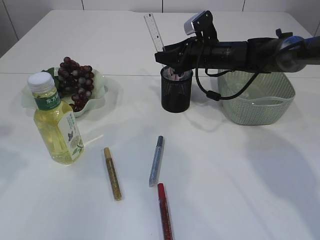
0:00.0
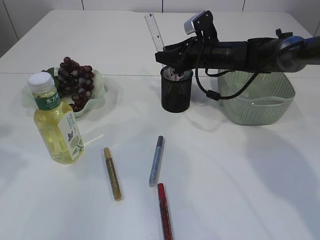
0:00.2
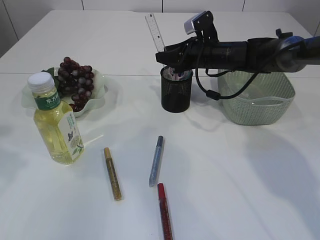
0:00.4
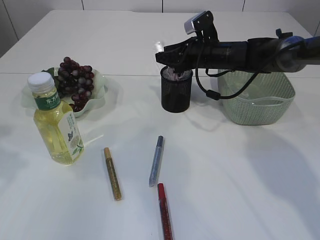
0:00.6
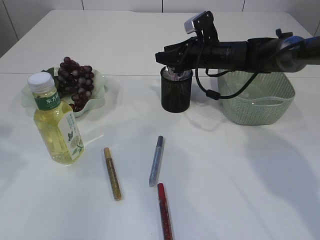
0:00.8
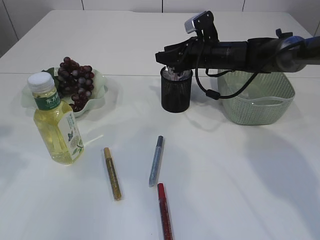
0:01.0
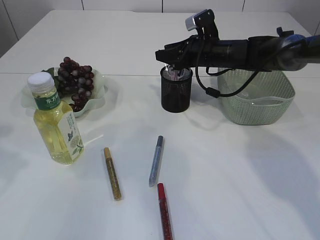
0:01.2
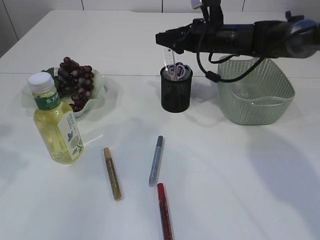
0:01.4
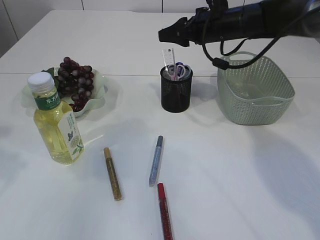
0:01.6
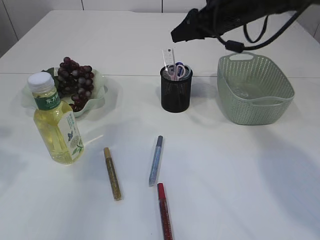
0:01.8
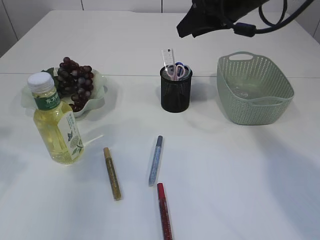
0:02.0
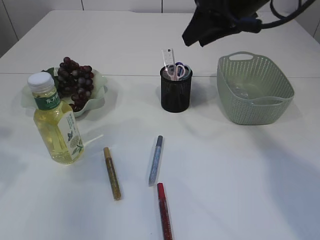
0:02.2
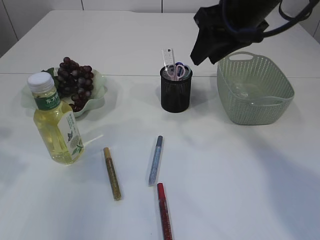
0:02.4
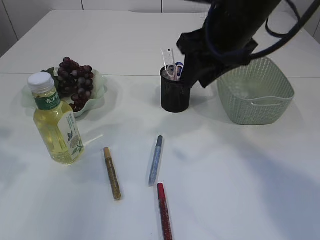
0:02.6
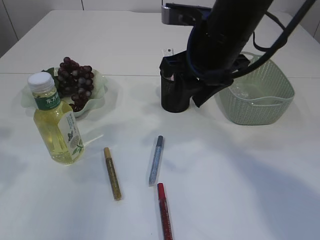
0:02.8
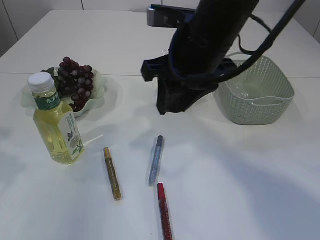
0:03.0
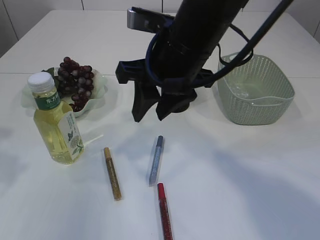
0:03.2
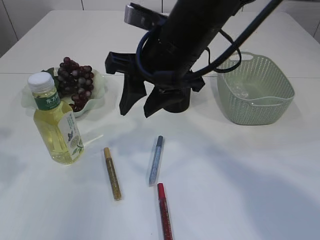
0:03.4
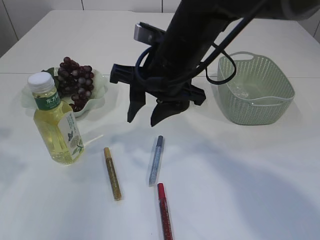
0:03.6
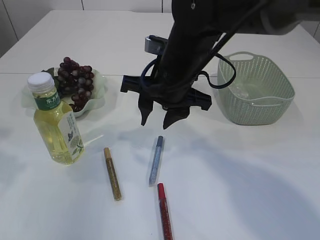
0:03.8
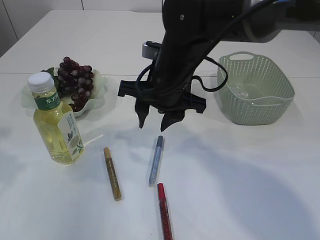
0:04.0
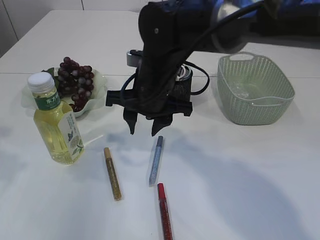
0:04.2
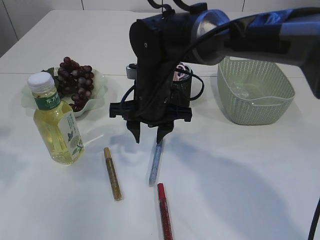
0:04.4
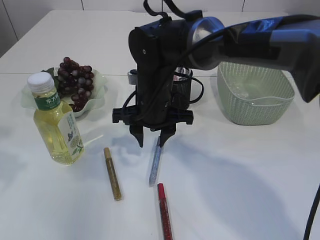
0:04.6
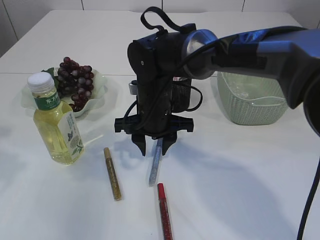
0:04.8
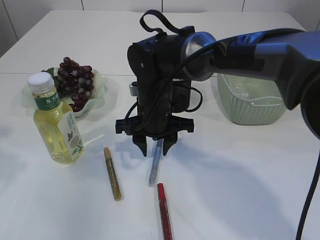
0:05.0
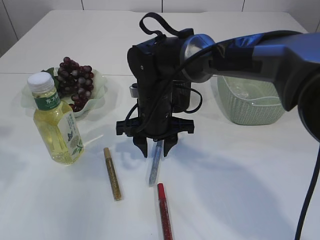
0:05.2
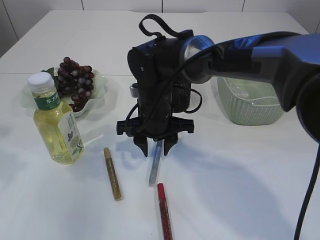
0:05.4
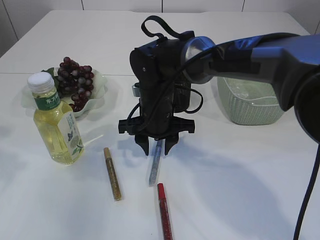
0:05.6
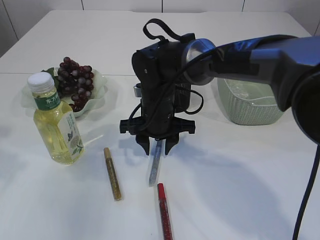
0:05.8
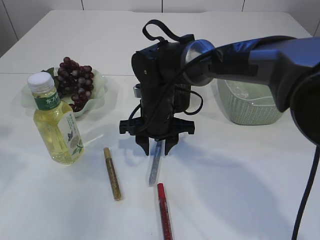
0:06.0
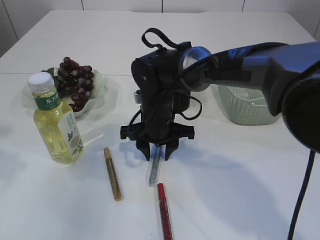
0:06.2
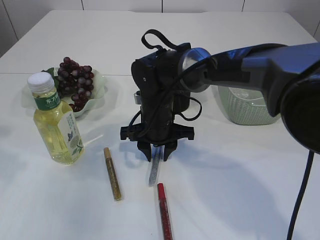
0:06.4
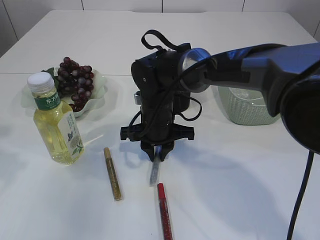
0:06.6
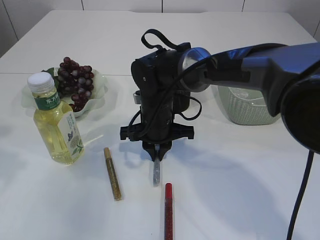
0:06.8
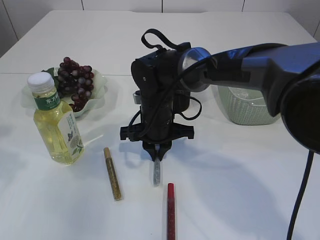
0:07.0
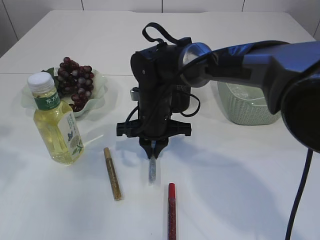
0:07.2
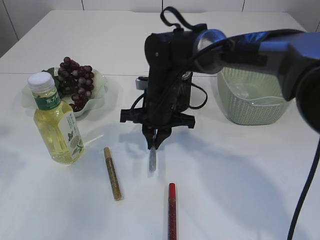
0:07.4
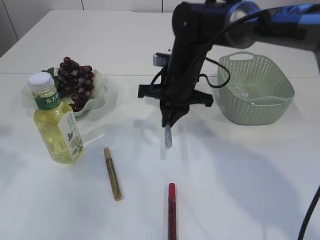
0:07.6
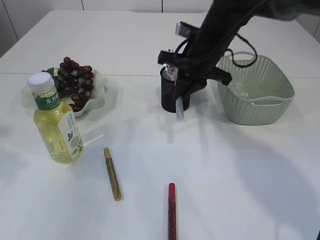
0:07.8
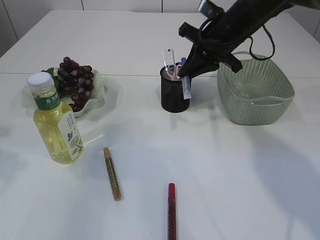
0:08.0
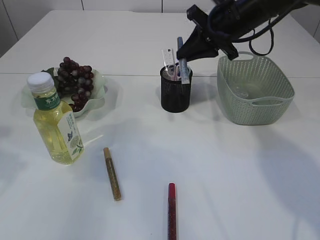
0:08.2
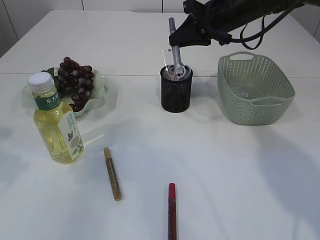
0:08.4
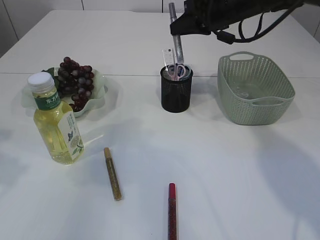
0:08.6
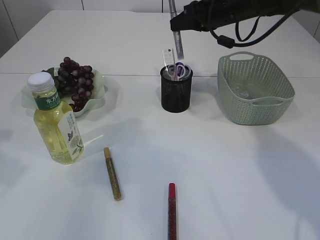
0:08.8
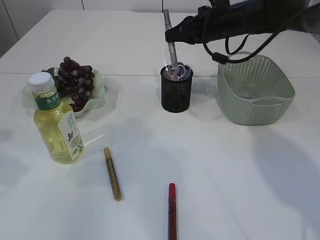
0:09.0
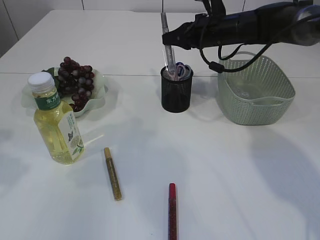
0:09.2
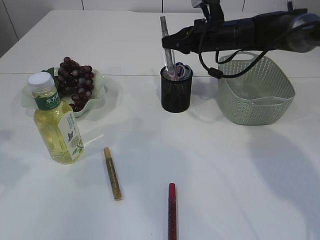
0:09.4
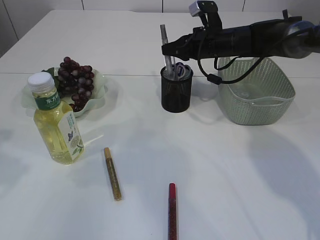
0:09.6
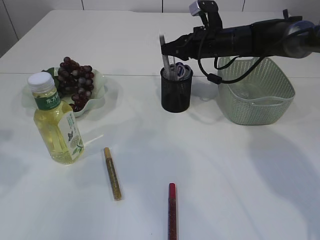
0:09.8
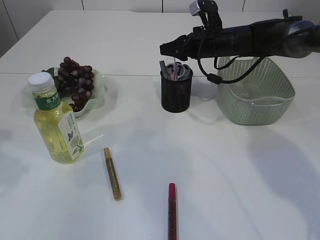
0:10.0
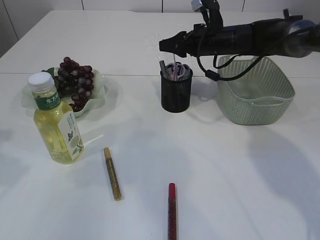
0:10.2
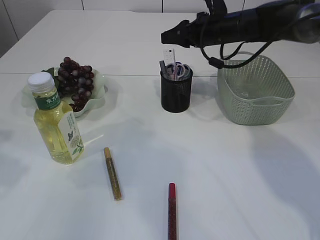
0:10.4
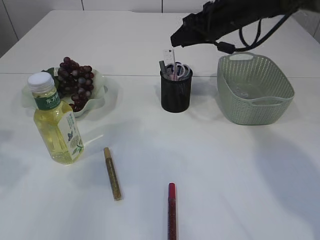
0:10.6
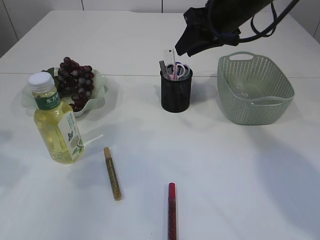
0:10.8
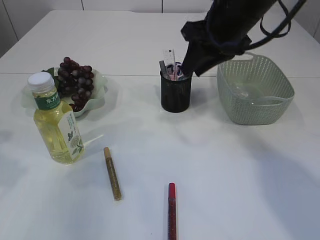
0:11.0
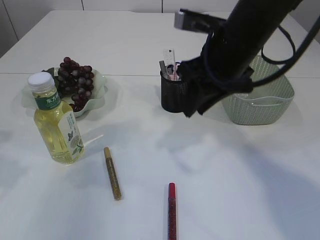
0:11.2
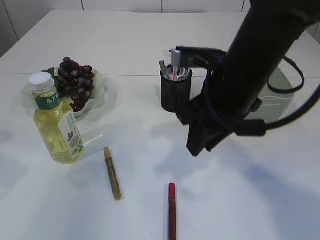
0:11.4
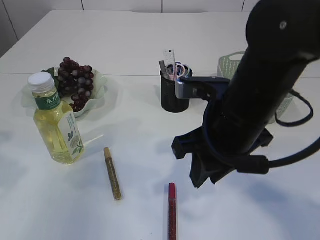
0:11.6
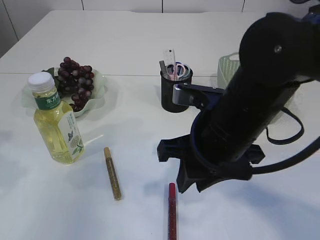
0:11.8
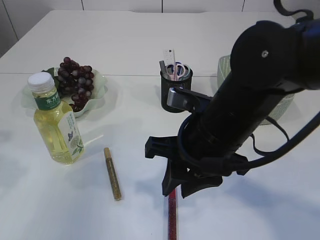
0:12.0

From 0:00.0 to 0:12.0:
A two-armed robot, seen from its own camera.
Step, from 0:01.6 to 0:07.4: pick up the silver glue.
Step, from 0:07.6 to 0:10.4: place the silver glue into the pen holder.
From 0:00.0 to 0:01.6: The right gripper is displaced upward by about 5 cm.
From 0:01.6 to 0:03.0: The right gripper travels backward and to the left by some 20 cm.
From 0:03.0 to 0:04.4: The right gripper heads downward and to the left, covering some 15 cm.
From 0:04.4 to 0:06.0: The right gripper shifts about 5 cm downward.
From 0:06.0 to 0:07.6: The right gripper ends up some 5 cm from where it was, and closes.
From 0:07.6 to 0:09.0: The right gripper goes approximately 15 cm to the right, forward and upward.
From 0:09.0 to 0:10.4: The right gripper opens.
From 0:10.4 to 0:12.0: The right gripper is displaced backward by about 25 cm.

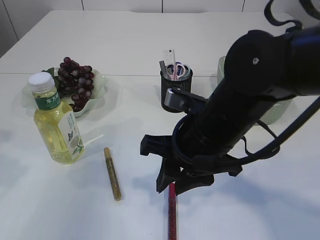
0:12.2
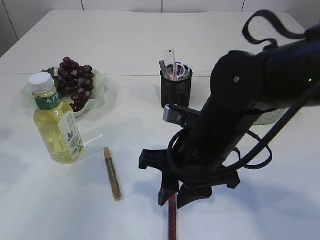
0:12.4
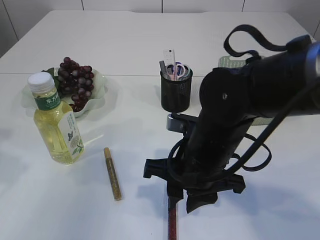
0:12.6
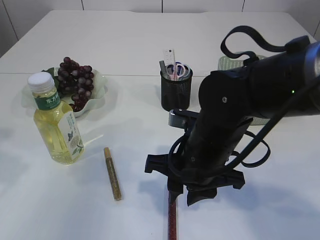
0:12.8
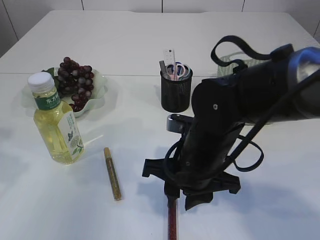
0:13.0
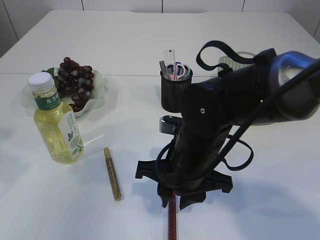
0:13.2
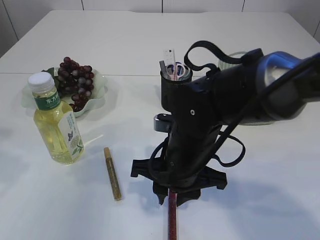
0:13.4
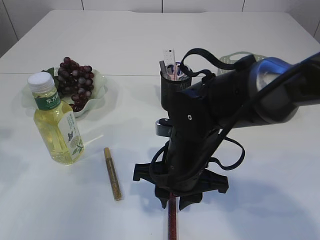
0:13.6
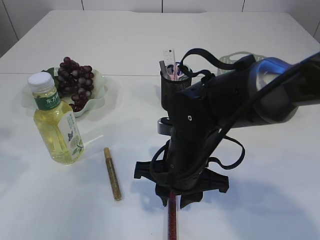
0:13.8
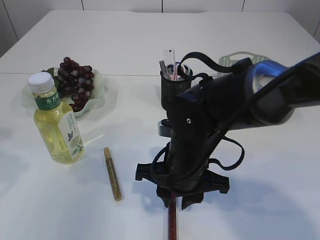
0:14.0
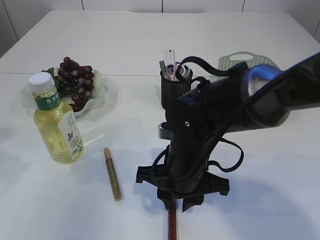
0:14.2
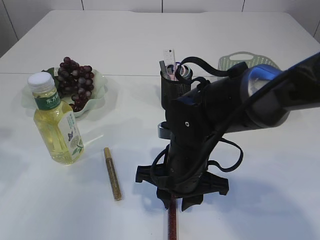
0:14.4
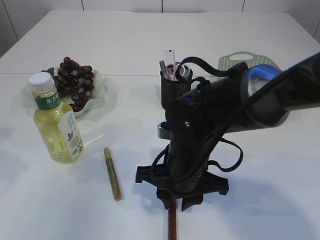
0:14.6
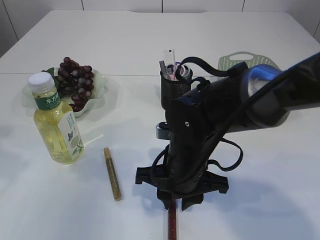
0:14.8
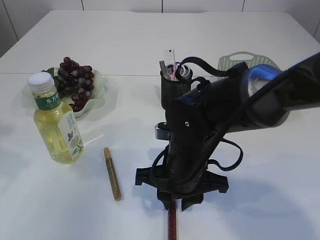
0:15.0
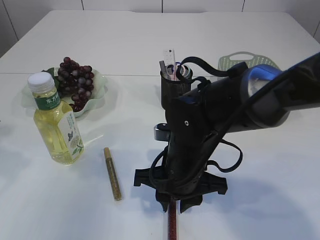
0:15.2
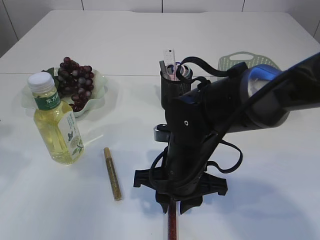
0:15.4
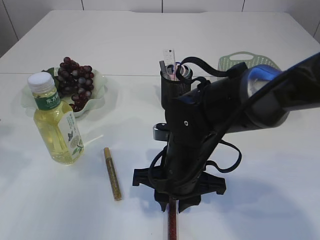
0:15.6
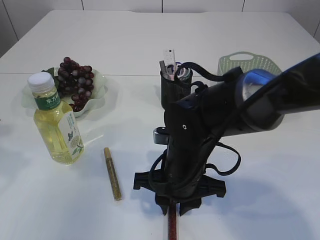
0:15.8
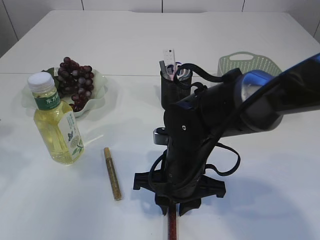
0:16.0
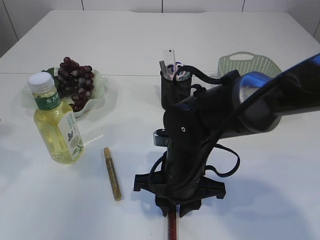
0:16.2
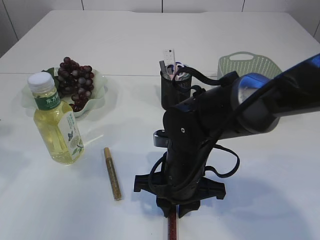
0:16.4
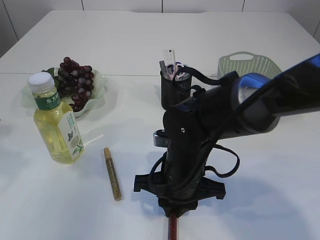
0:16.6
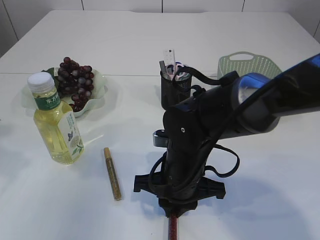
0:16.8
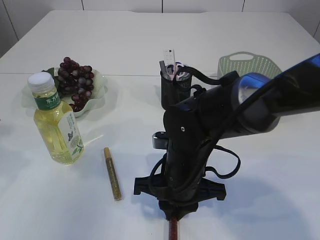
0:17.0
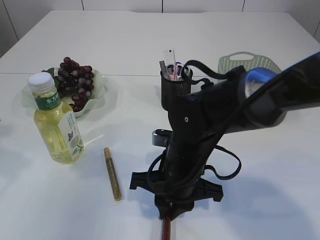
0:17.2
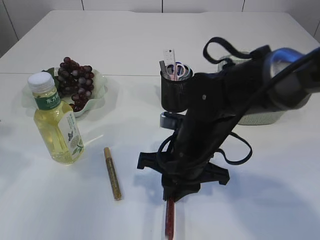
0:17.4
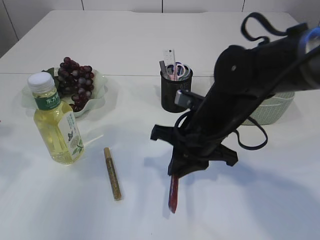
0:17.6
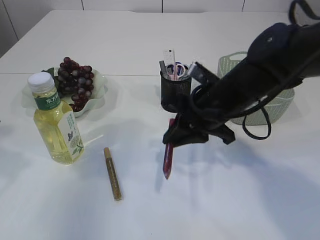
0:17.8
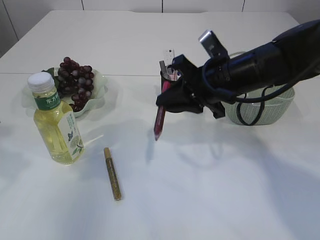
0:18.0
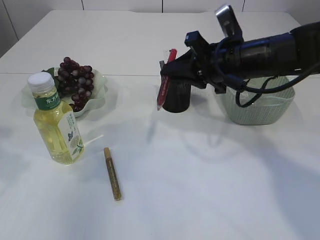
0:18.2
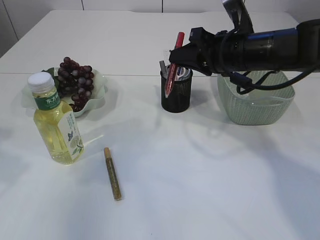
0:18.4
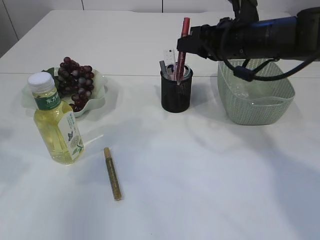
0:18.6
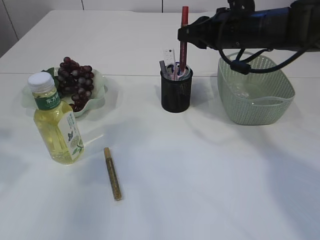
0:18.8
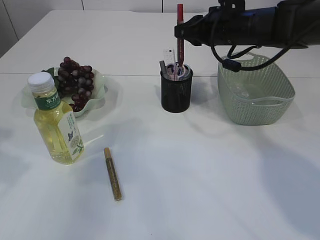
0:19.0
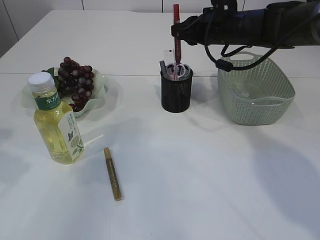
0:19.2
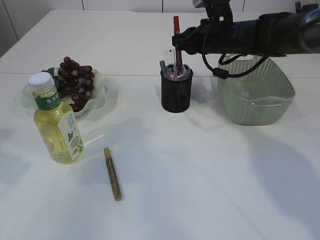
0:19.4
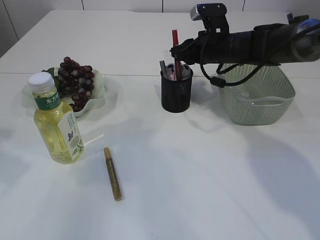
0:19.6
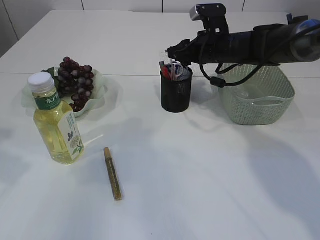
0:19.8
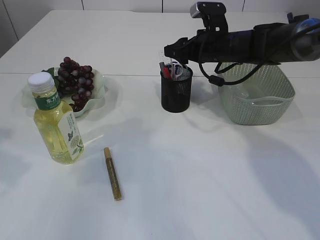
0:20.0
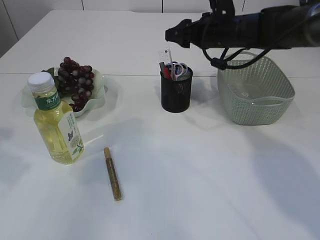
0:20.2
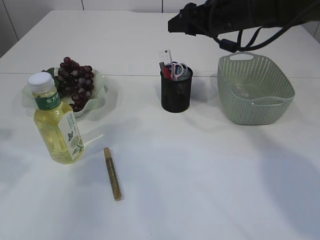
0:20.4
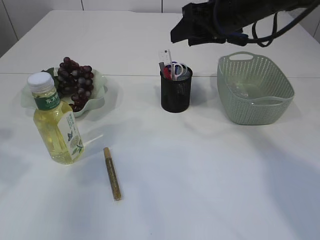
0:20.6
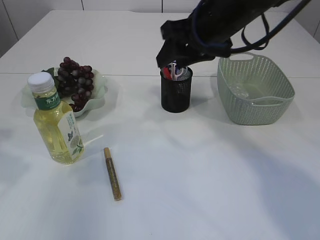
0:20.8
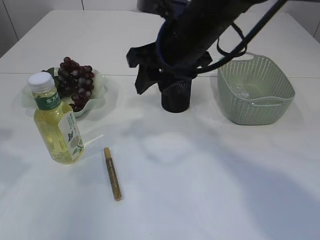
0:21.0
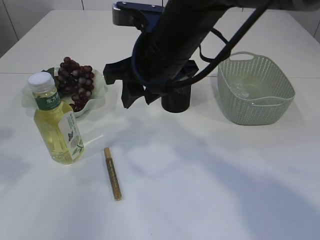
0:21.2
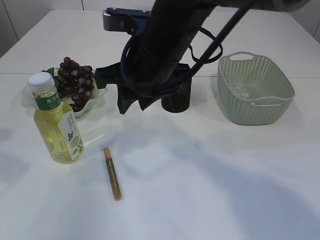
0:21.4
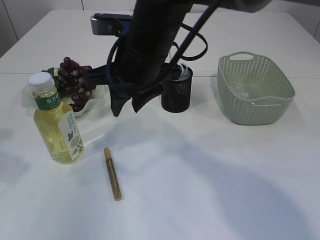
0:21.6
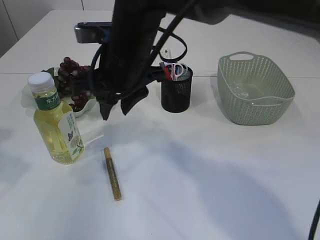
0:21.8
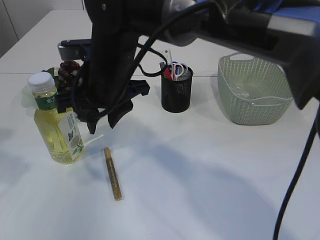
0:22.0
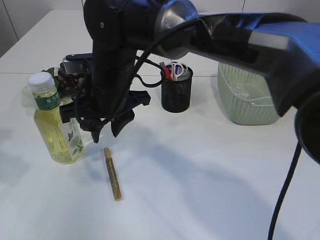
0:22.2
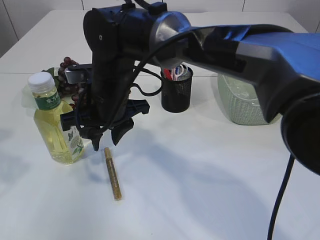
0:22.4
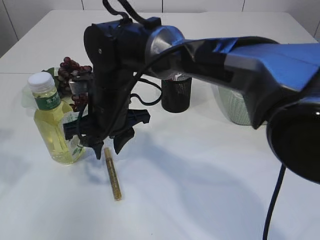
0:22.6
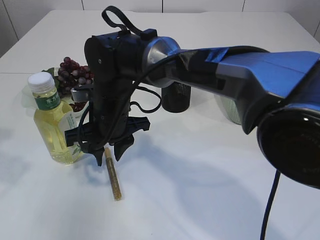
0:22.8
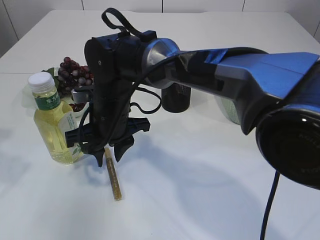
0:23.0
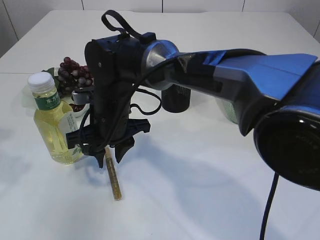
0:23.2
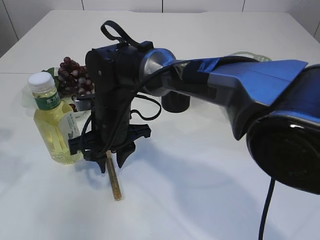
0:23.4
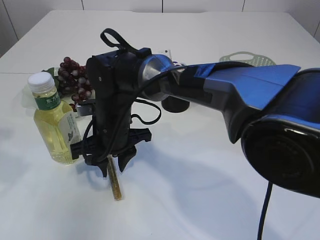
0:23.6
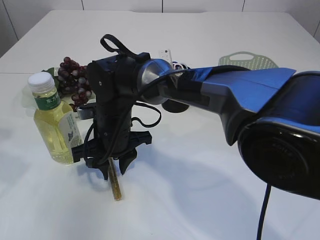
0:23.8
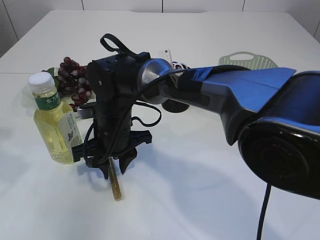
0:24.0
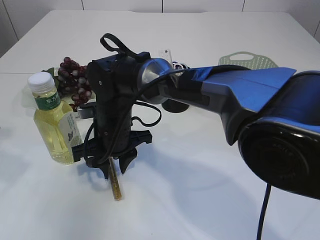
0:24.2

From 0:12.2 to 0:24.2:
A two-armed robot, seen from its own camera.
Step, from 0:12.2 to 0:17.6: pick up the red glue.
Step, from 0:17.8 to 0:20.2: place the red glue into the pen holder.
From 0:12.2 to 0:13.8: The right gripper shifts approximately 5 cm downward.
From 0:13.8 to 0:15.2: Both grippers stay put.
From 0:15.2 to 0:16.6: Neither gripper changes place.
From 0:16.6 to 0:18.2: The right gripper heads upward, to the right and forward, covering roughly 20 cm.
From 0:18.2 to 0:19.8: The right gripper travels forward by about 10 cm, and opens its fingers.
From 0:19.8 to 0:21.2: The right gripper shifts approximately 20 cm backward, to the left and upward.
From 0:21.2 to 0:22.6: The right gripper travels downward and to the left by approximately 15 cm.
From 0:22.6 to 0:24.2: The right gripper shifts roughly 5 cm downward.
